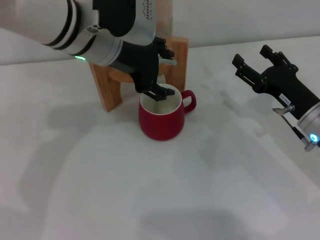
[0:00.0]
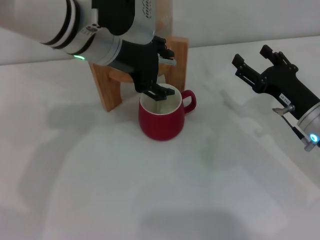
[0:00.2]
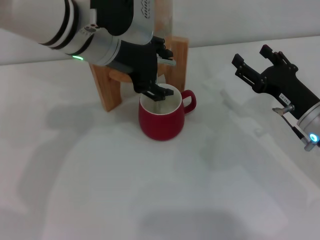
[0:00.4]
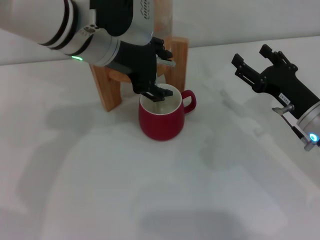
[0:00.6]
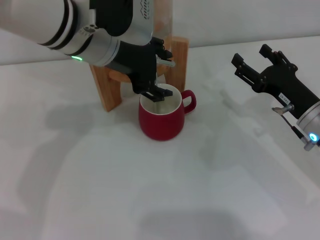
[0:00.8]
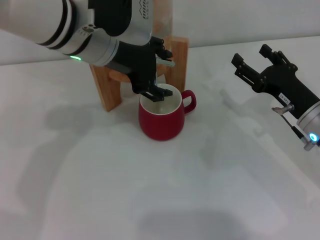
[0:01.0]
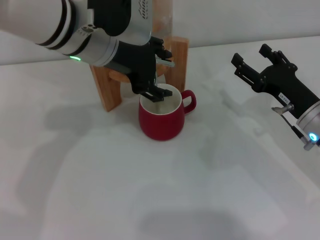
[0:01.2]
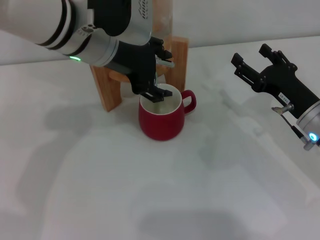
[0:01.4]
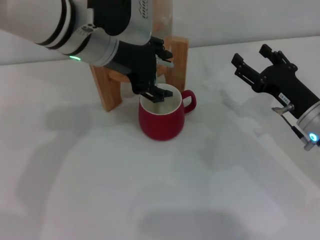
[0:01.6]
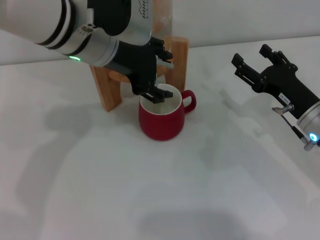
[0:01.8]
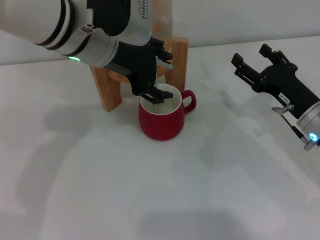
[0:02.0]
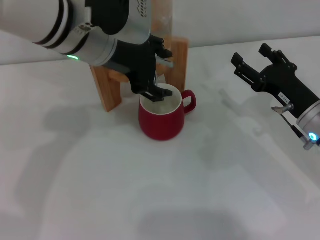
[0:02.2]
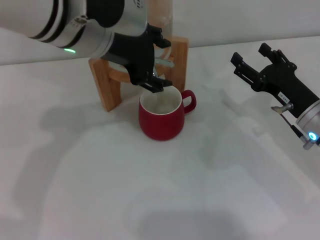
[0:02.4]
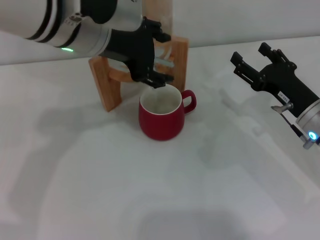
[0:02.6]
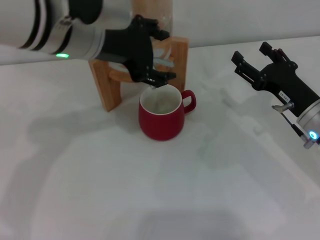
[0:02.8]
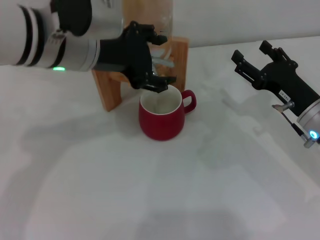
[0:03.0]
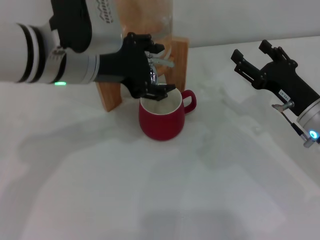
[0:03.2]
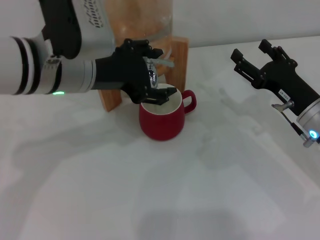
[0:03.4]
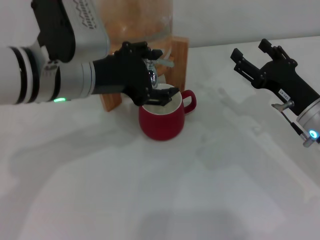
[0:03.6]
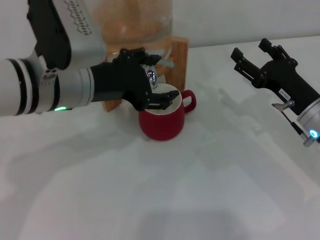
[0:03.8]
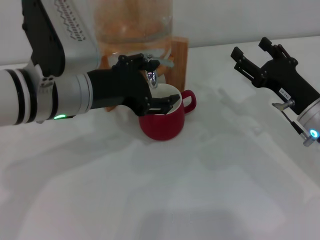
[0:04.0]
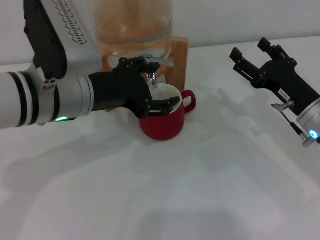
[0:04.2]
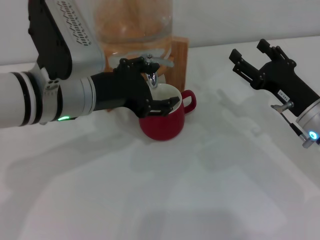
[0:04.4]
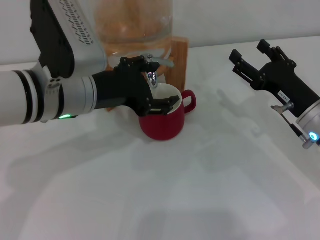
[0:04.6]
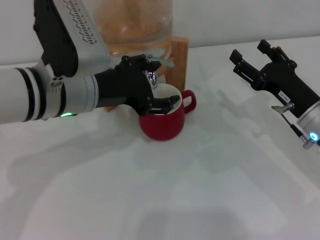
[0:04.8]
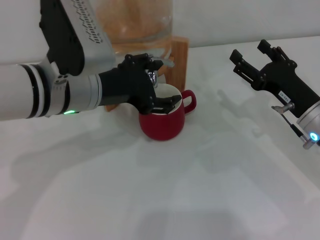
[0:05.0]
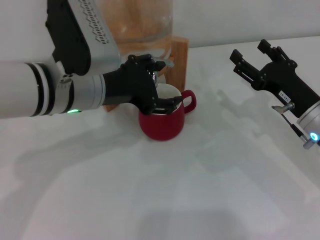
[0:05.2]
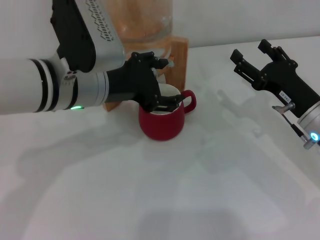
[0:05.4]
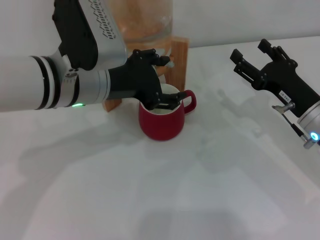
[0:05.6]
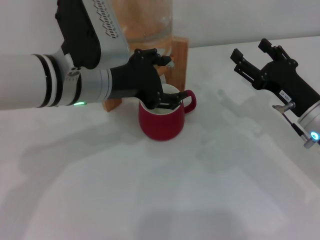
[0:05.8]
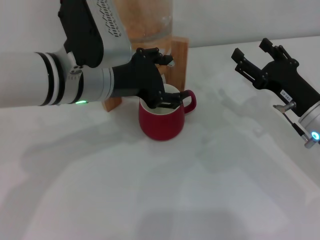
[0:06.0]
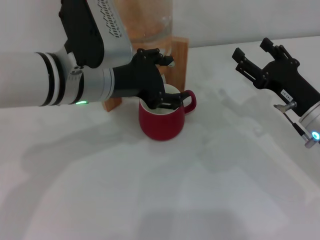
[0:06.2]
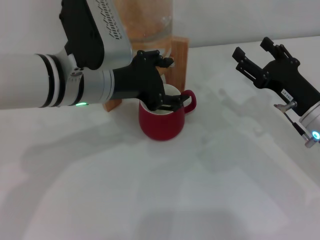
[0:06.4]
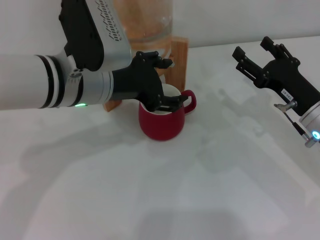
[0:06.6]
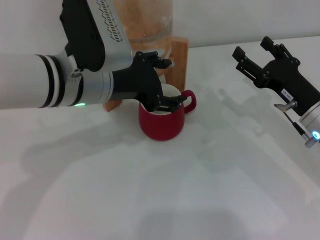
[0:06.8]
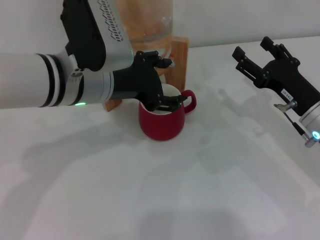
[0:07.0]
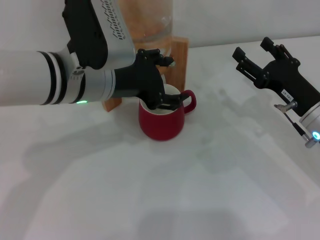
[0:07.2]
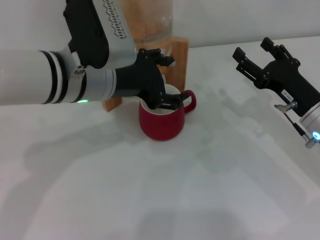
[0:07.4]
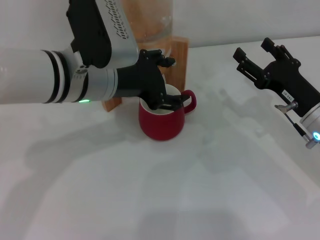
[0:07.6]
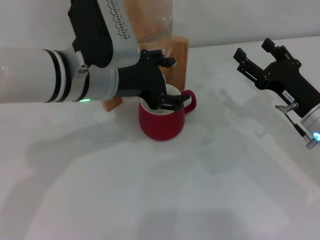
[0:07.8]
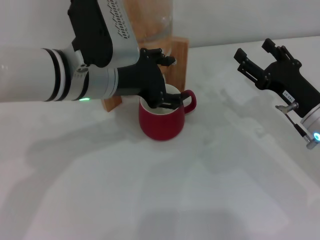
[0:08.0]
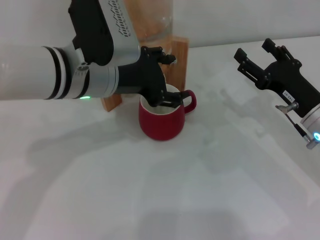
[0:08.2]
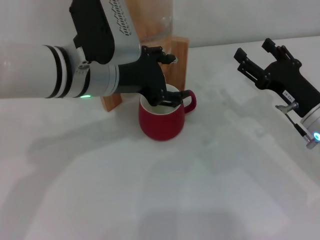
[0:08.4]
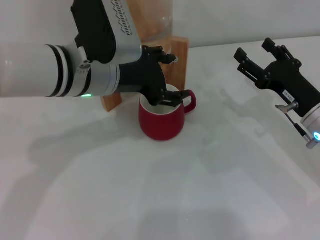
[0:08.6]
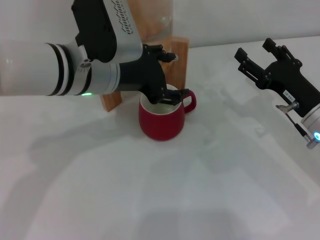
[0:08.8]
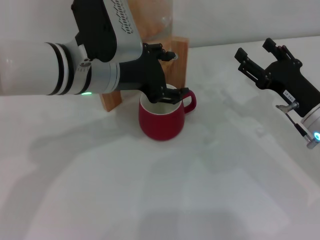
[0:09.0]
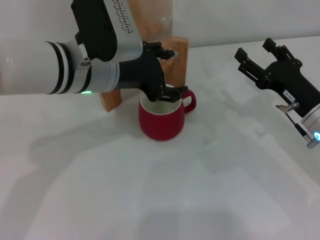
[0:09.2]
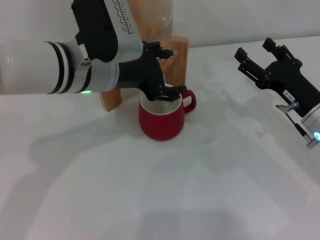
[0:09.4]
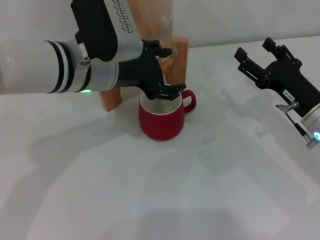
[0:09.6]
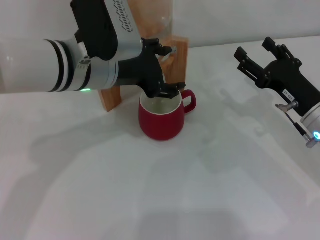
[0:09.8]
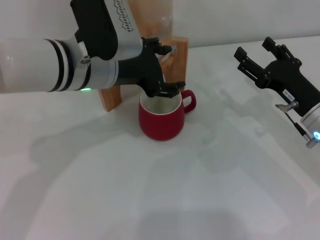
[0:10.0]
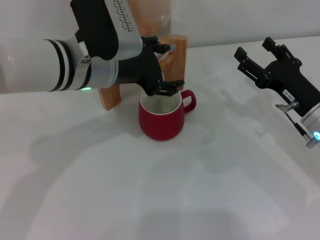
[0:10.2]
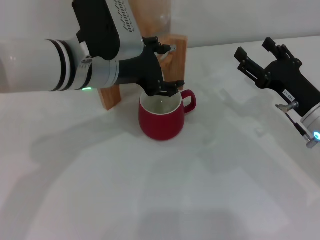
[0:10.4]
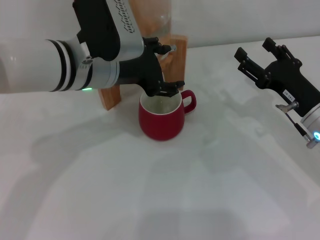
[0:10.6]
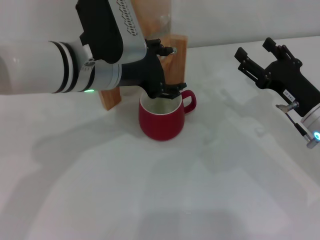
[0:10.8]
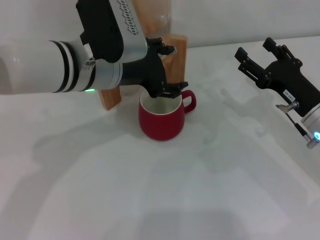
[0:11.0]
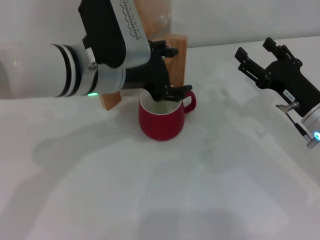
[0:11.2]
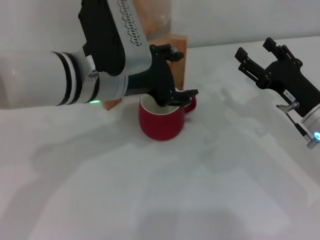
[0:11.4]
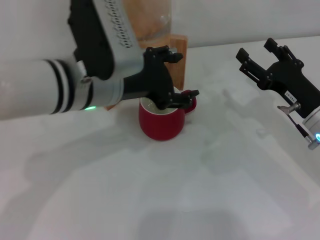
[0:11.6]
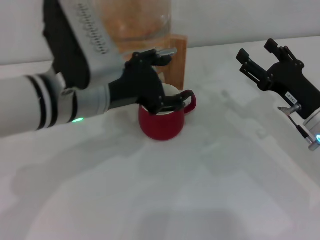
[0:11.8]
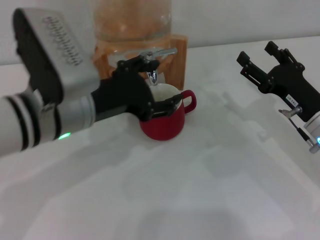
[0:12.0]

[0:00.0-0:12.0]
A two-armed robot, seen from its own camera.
Task of the whole recording: the right gripper pick up the red cup and place it horizontally under the faucet, the left gripper turn on the faucet to fill the cup, and then turn off the faucet.
Step, 0:00.0 to 0:03.4: Open the dispenser valve and fill the cup with water with the left gripper.
Step, 0:03.6 to 0:12.0: Close the dispenser valve with the left gripper.
0:00.0 to 0:01.6: Both grippers stay put.
0:01.6 to 0:03.0: The grippers move only a little.
0:03.0 to 0:04.4: The left gripper shifts roughly 5 cm downward.
0:04.4 to 0:06.0: There are only small adjustments of the grippers.
0:06.0 to 0:07.6: Both grippers stay put.
0:07.6 to 0:09.0: Both grippers stay put.
0:09.0 to 0:10.4: The two grippers keep their place.
0:10.4 to 0:12.0: The left gripper moves backward, roughly 5 cm.

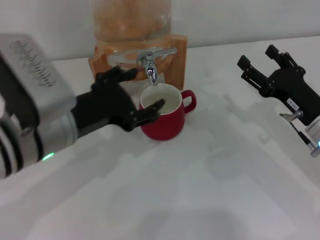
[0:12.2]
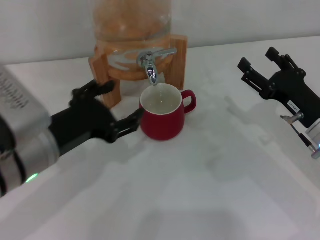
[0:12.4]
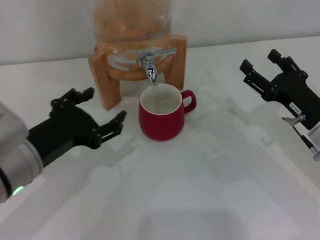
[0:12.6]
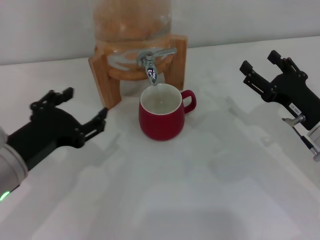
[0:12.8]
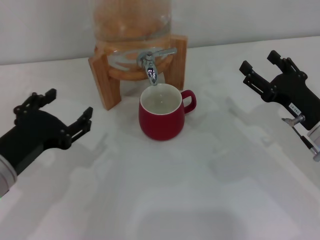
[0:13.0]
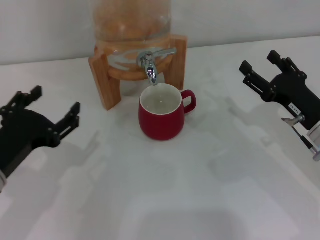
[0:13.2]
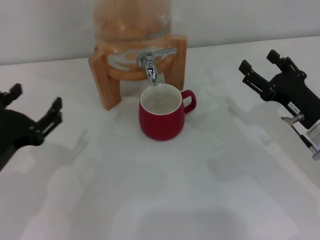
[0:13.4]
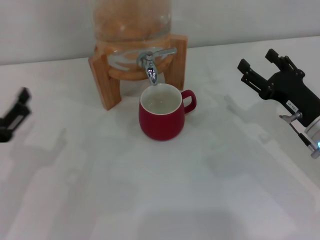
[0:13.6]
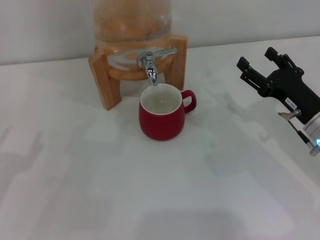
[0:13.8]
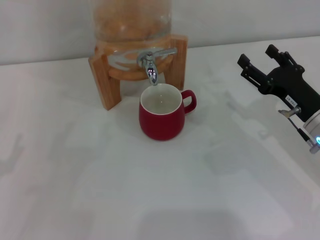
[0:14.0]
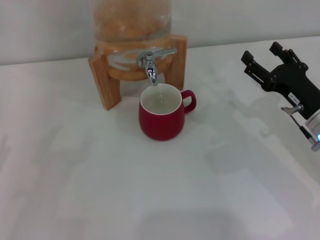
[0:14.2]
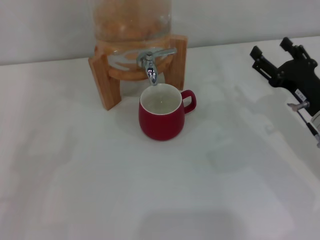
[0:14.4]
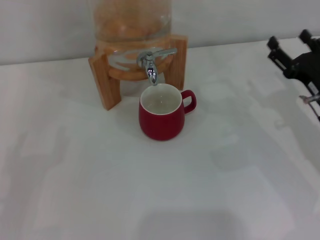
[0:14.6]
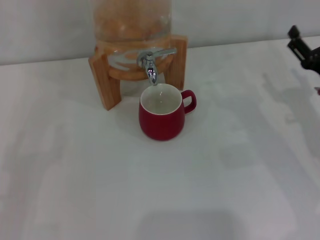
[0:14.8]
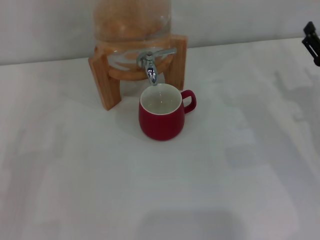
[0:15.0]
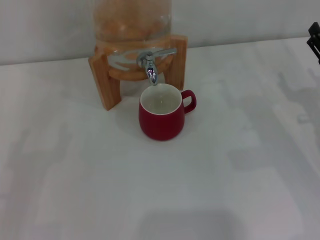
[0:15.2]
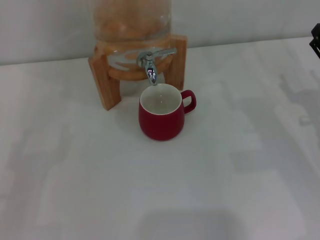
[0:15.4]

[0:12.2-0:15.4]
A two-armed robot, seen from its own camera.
Task of the whole recording: the right gripper pick up the red cup and place it horizontally under the faucet, the left gripper turn on the faucet to fill the cup, and then turn off the faucet.
0:12.2 to 0:13.8: The left gripper shifts roughly 15 cm to the left and backward.
0:13.8 to 0:15.4: The left gripper ends up some 5 cm from where it was. The right gripper travels to the right by roughly 5 cm.

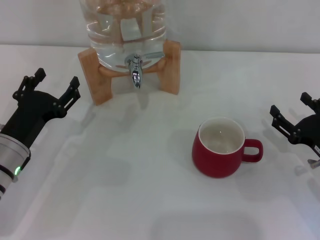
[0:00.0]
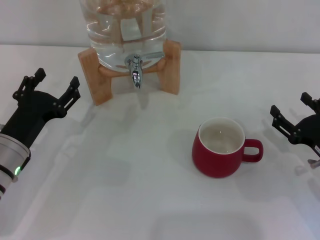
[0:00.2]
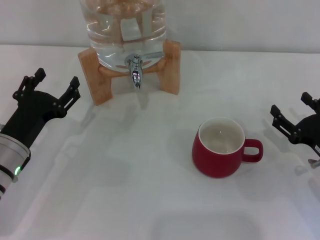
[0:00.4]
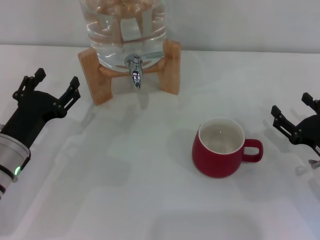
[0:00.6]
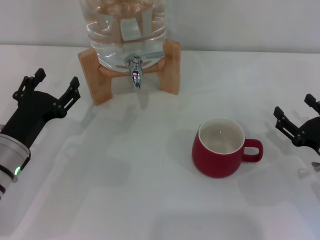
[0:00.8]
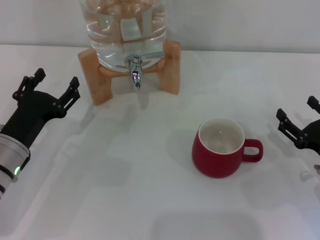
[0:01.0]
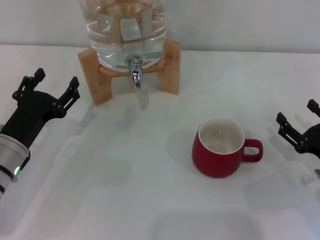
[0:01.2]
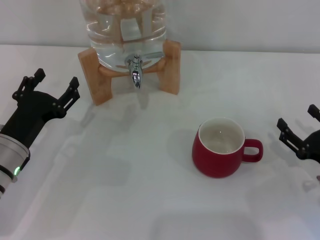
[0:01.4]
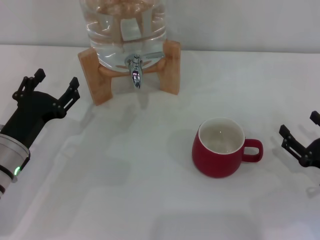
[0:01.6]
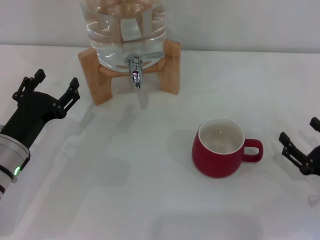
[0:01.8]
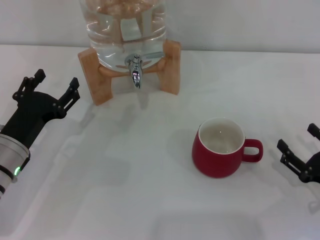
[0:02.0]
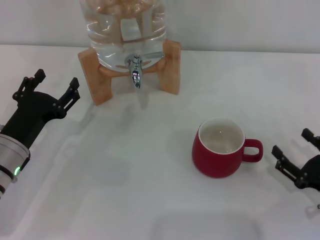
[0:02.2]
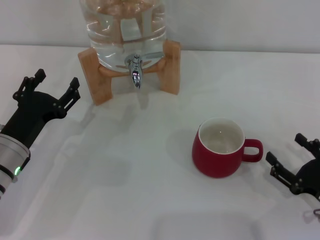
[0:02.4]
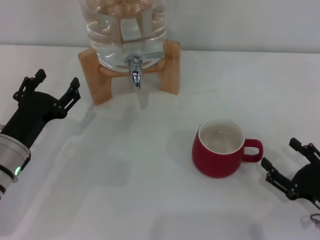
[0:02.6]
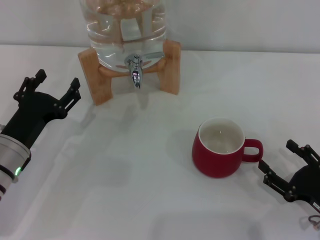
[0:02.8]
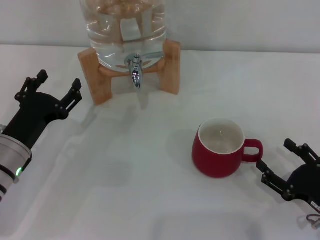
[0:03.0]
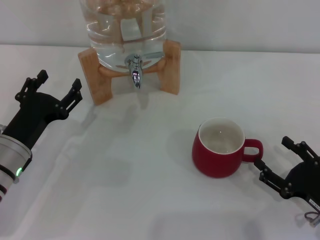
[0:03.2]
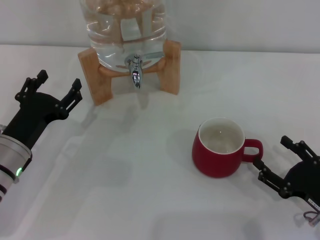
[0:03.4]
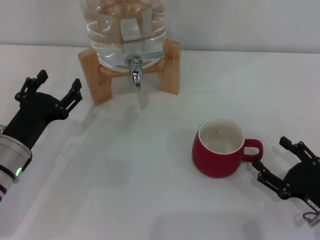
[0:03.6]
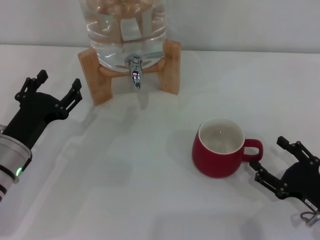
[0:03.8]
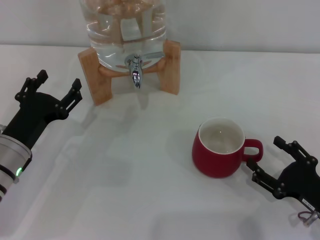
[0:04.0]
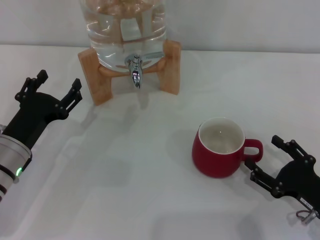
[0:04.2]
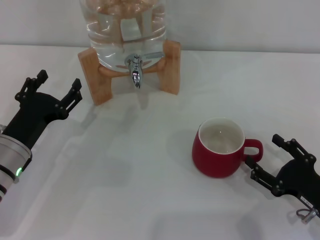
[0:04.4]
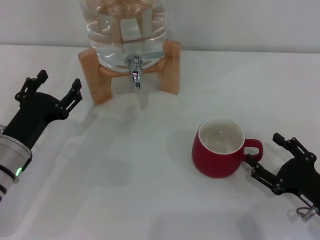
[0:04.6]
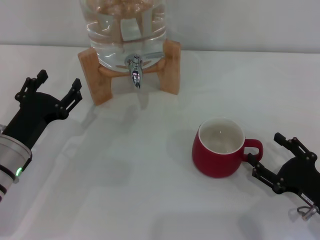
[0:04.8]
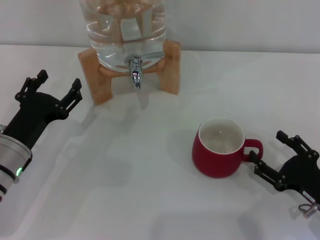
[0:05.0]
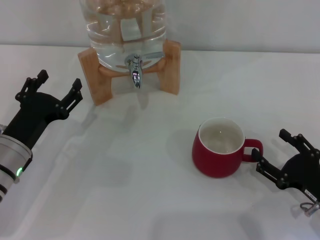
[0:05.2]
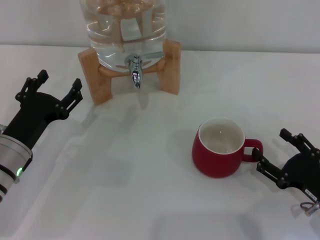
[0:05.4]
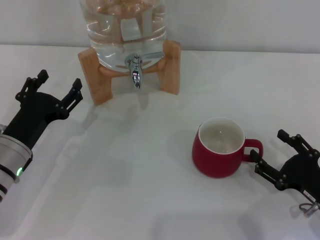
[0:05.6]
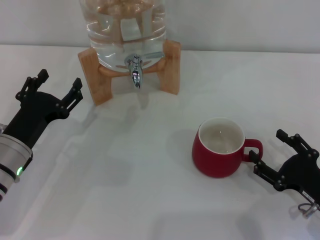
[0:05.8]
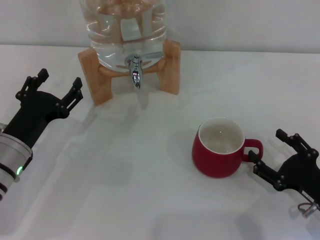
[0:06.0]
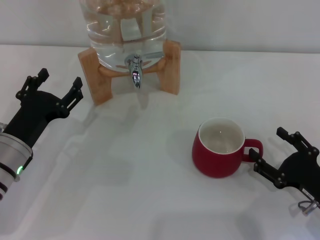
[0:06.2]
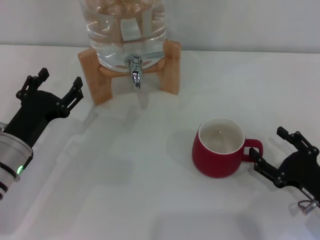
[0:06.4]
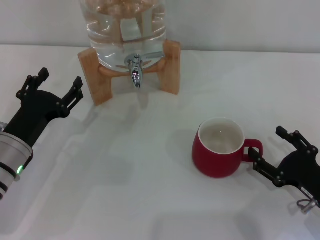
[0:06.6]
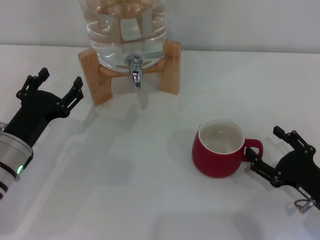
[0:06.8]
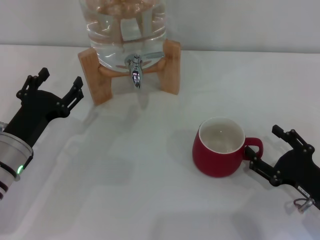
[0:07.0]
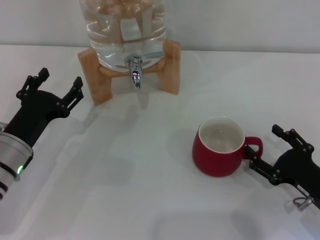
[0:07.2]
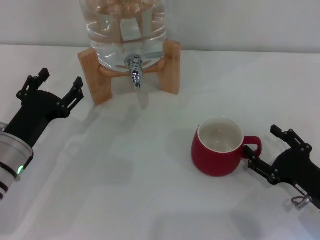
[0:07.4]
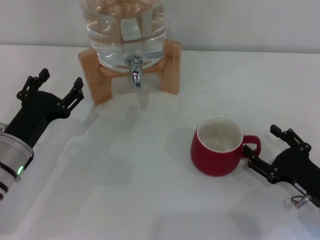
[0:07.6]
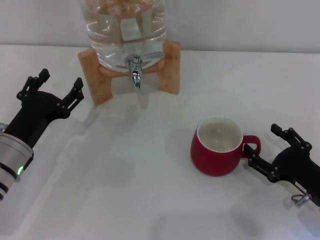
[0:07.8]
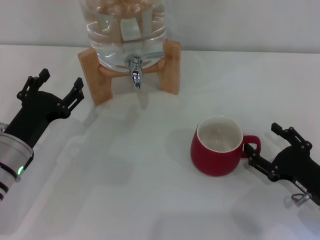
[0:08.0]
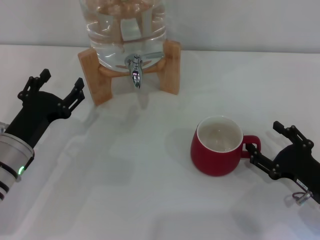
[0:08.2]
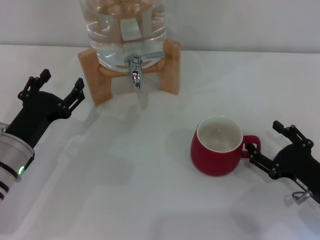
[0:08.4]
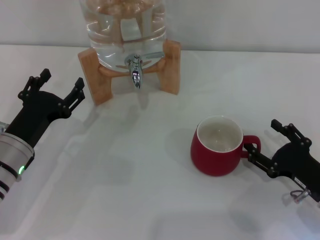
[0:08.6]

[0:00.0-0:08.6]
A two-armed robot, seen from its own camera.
Task of the whole recording: the right gripper pick up the red cup and place it horizontally under the faucet, the left gripper turn on the faucet to fill the cup, and then turn off the faucet.
0:00.0 to 0:01.4: The grippers move only a little.
0:01.4 to 0:04.4: The grippers make only small movements.
0:04.4 to 0:05.8: The two grippers keep their place.
0:05.8 to 0:07.2: Both grippers stay about where they are.
0:07.2 to 0:08.6: Neither gripper changes place.
